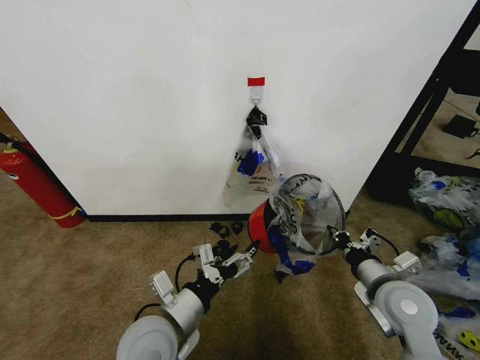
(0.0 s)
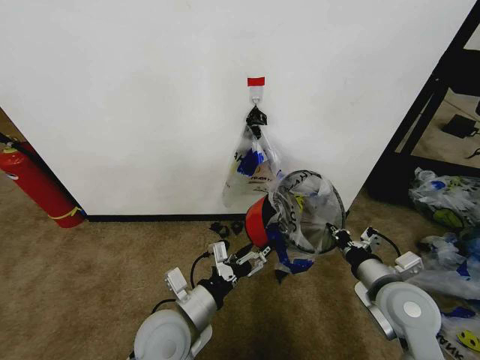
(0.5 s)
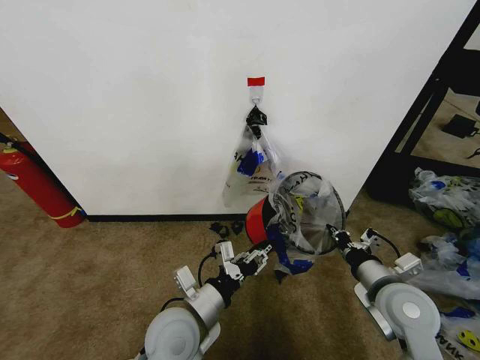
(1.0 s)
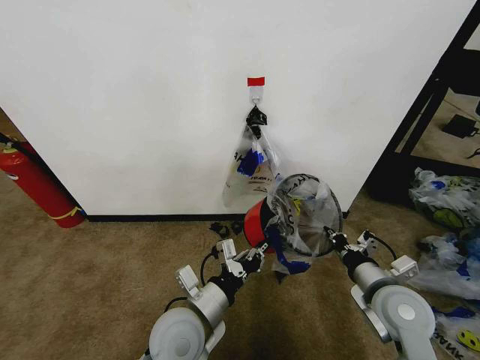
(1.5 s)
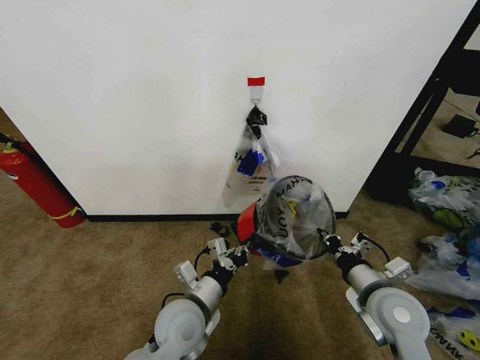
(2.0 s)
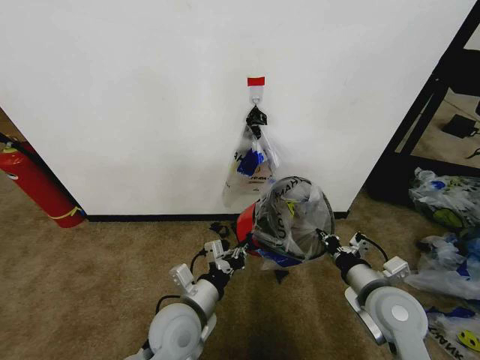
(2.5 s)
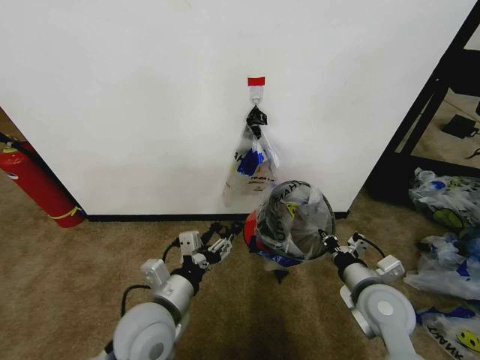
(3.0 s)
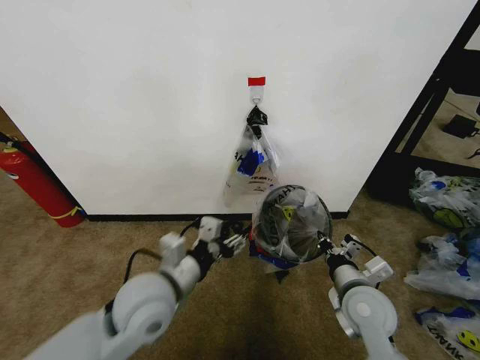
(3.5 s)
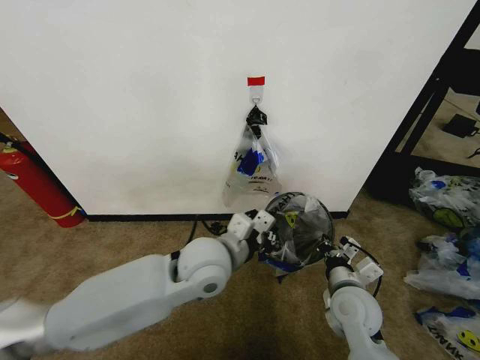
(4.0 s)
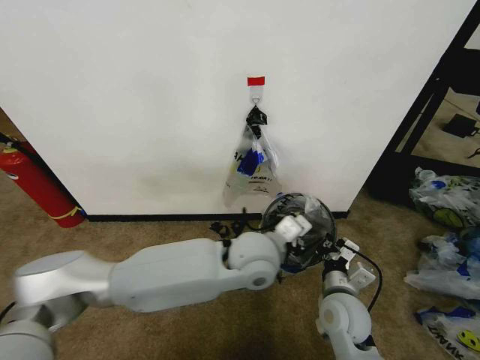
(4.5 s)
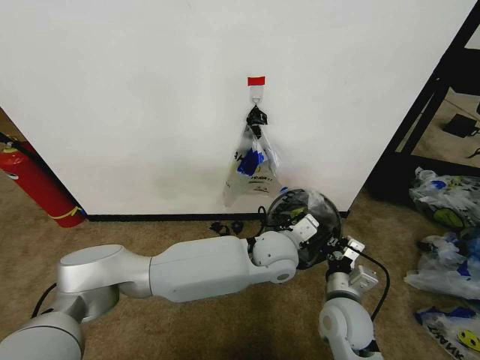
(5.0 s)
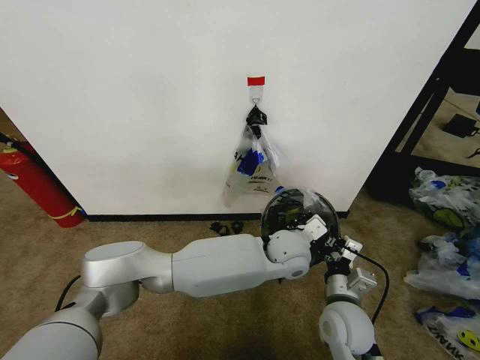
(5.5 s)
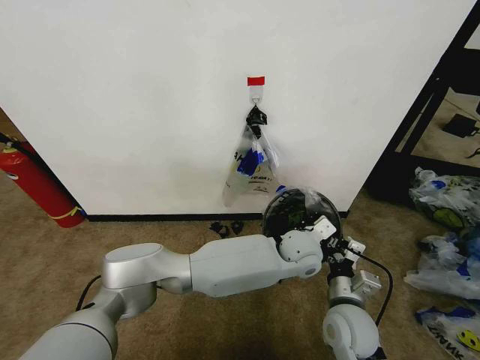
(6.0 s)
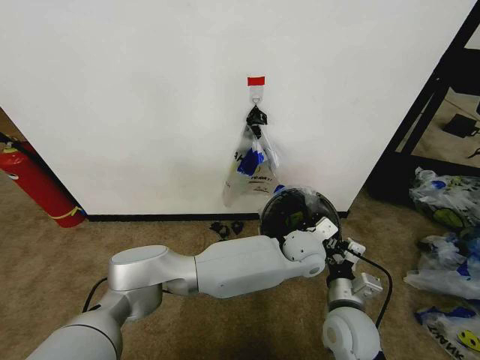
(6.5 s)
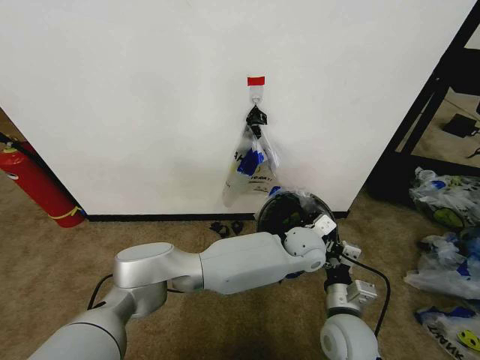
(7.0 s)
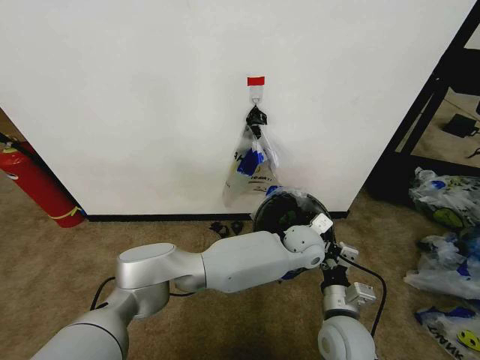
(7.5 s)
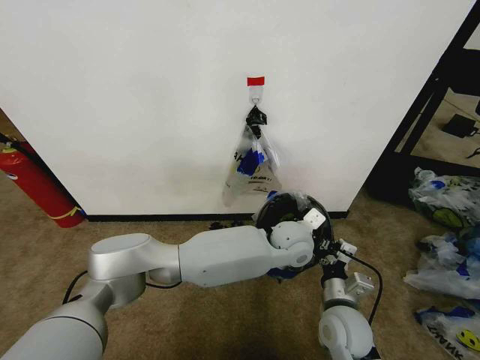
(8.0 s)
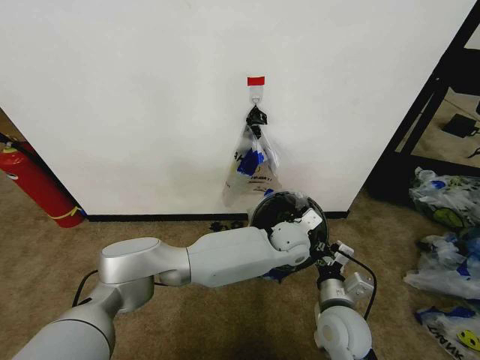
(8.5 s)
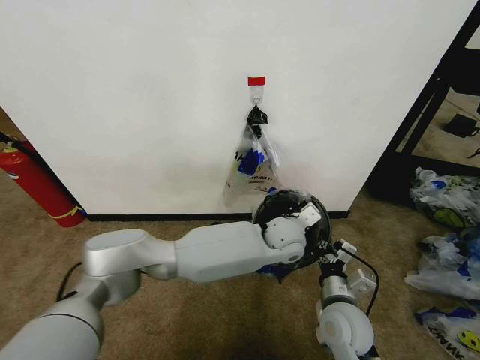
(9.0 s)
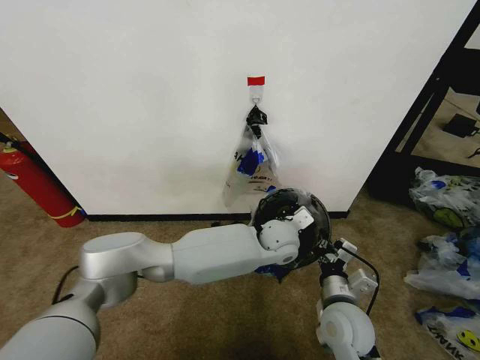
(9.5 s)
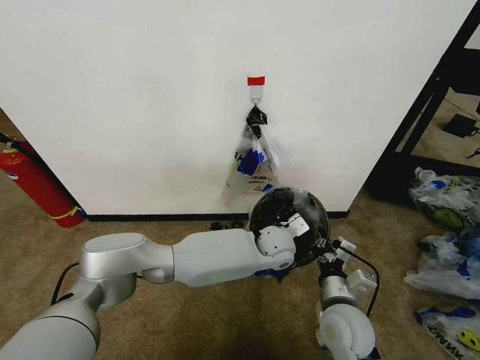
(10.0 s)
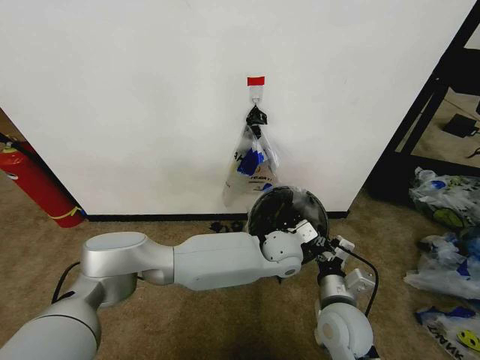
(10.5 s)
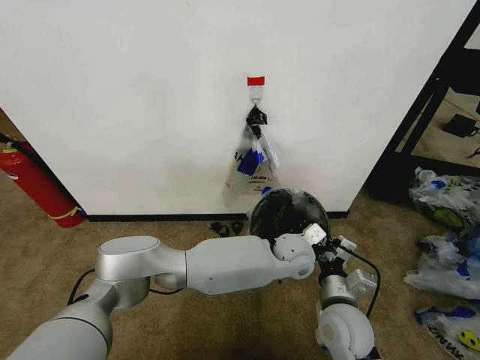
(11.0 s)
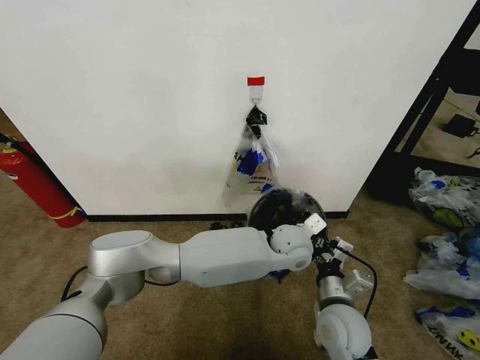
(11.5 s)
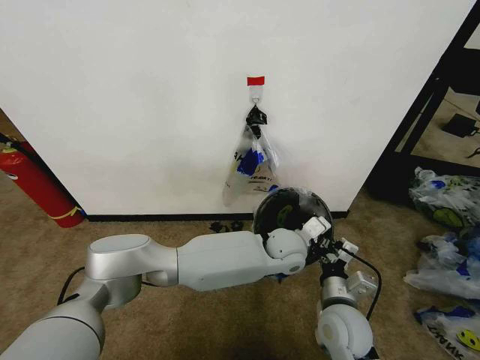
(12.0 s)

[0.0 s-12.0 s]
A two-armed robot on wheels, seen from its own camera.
Task of the whole recording: Pick up the garbage bag from the wall and place it over the trash bin.
0.0 to 2.0 s: The left gripper ends up about 5 cm from where it was, and closes.
2.0 to 4.0 s: The right gripper goes about 5 cm downward. Meanwhile the left gripper heads upward and forward, covering approximately 15 cm, and opens, then closes once more.
4.0 to 6.0 s: The left gripper is displaced to the right by approximately 20 cm.
6.0 to 8.0 s: The grippers make only small movements.
8.0 to 10.0 s: The left gripper changes place by roughly 5 cm.

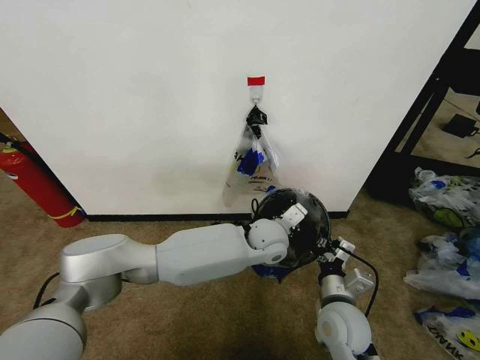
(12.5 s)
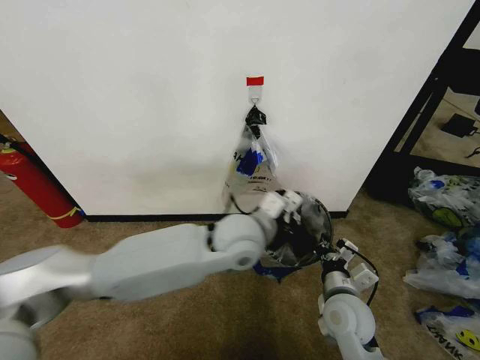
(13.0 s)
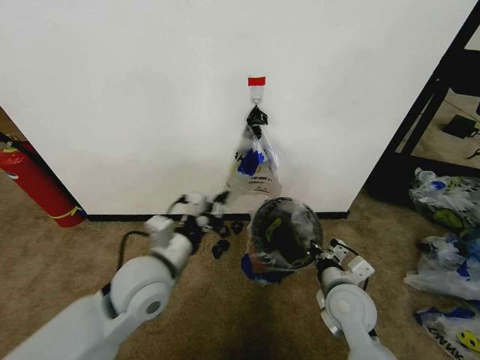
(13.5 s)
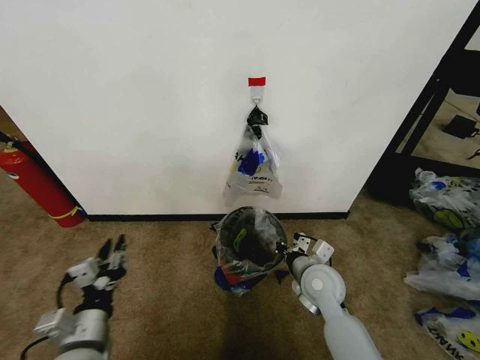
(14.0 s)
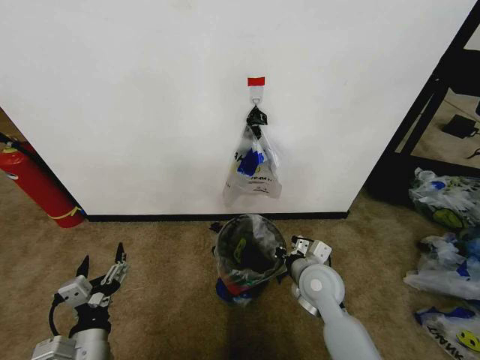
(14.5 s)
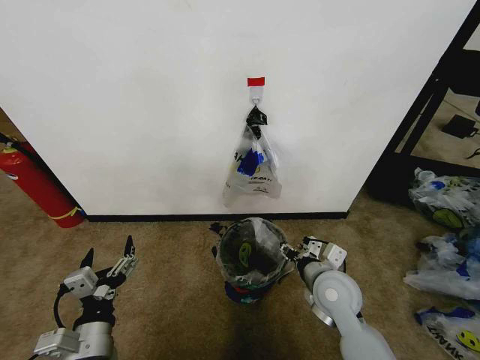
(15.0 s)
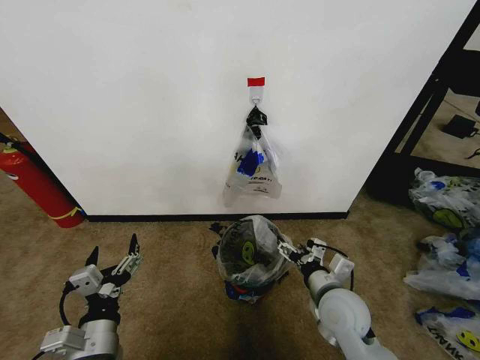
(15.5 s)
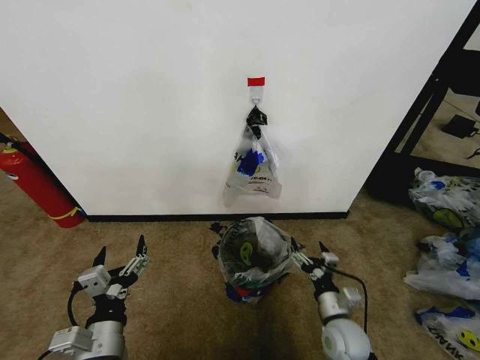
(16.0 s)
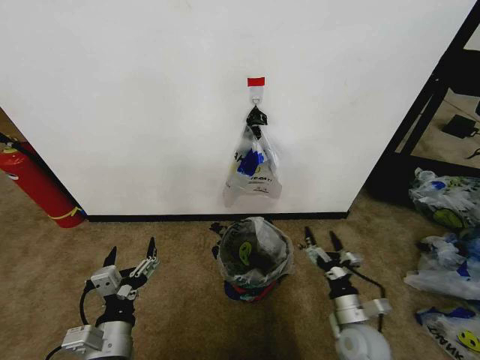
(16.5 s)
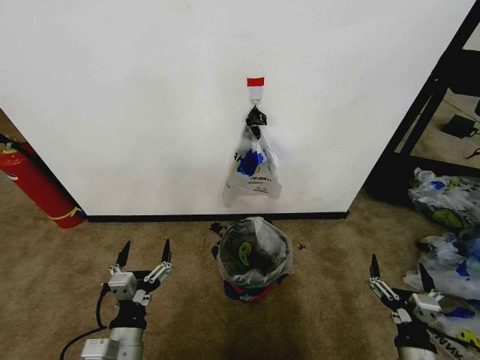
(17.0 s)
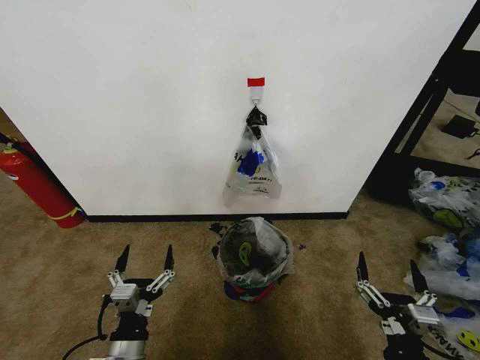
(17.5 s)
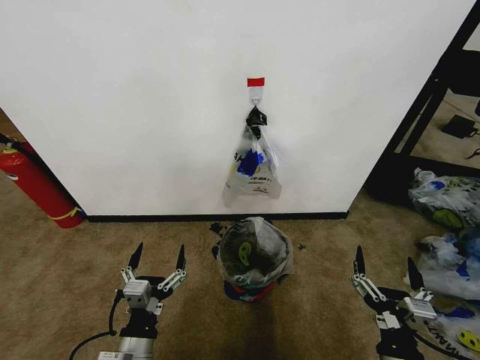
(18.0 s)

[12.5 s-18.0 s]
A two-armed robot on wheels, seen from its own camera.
Task of the whole recording: Pick up the garbage bag from the wall and place it over the trash bin.
12.5 to 14.5 s: The left gripper travels to the left and backward by roughly 40 cm, and opens its fingers. The right gripper heads forward, covering approximately 10 cm.
14.5 to 16.0 s: The right gripper heads downward, backward and to the right, covering approximately 15 cm, and opens its fingers.
16.0 to 18.0 s: The left gripper moves some 5 cm; the right gripper goes roughly 20 cm backward and upward.

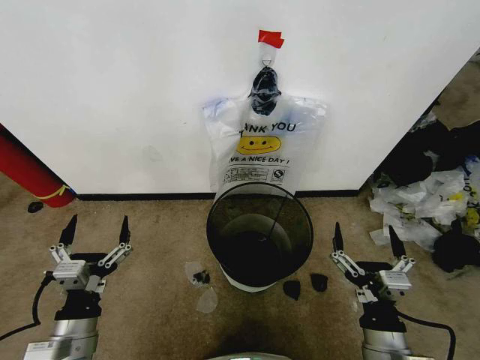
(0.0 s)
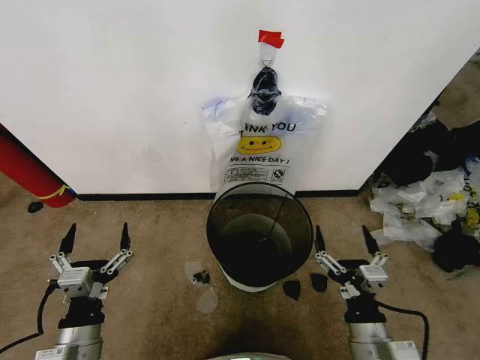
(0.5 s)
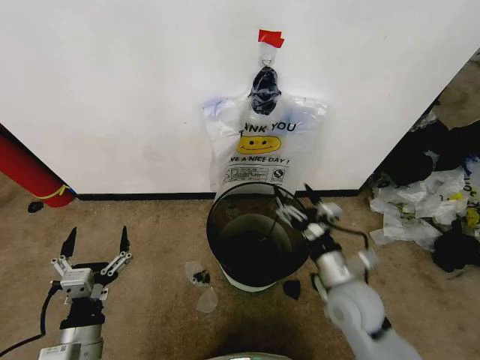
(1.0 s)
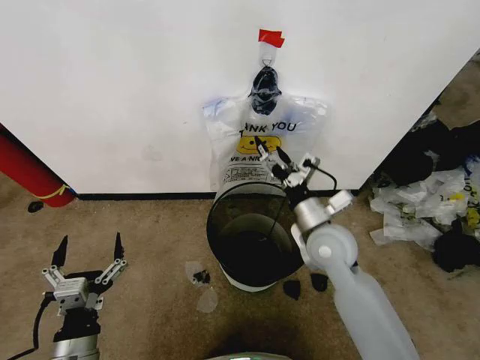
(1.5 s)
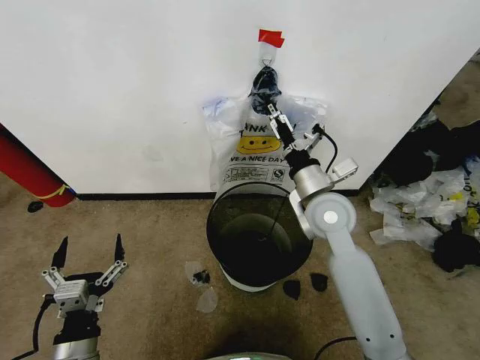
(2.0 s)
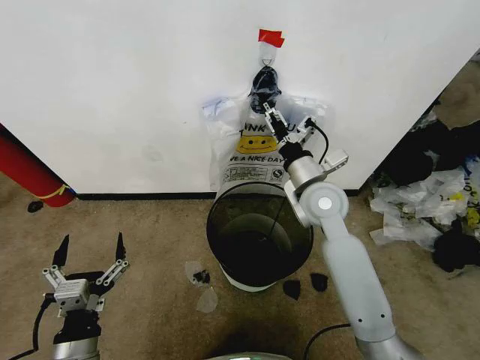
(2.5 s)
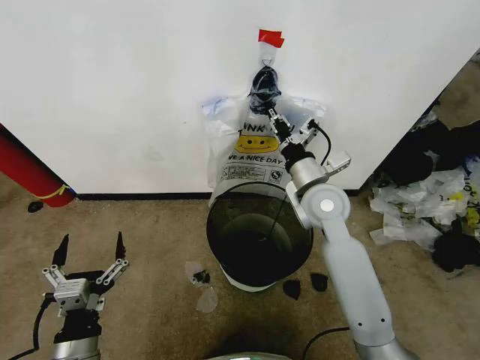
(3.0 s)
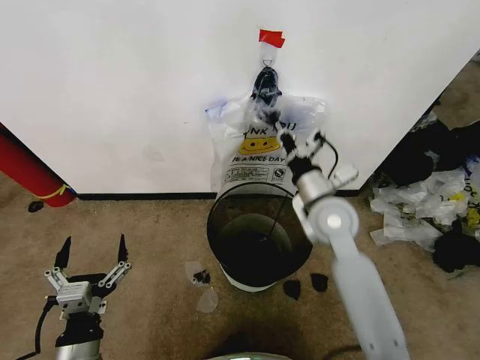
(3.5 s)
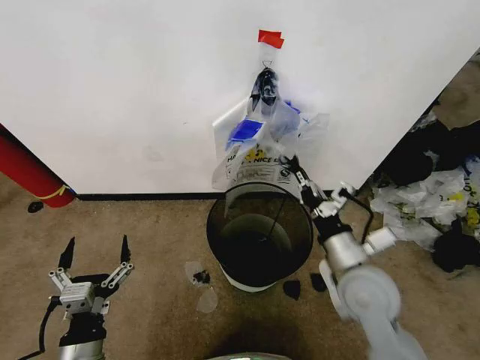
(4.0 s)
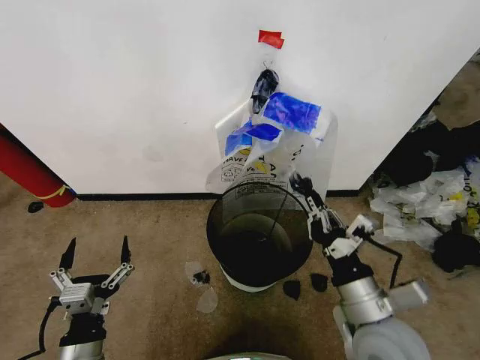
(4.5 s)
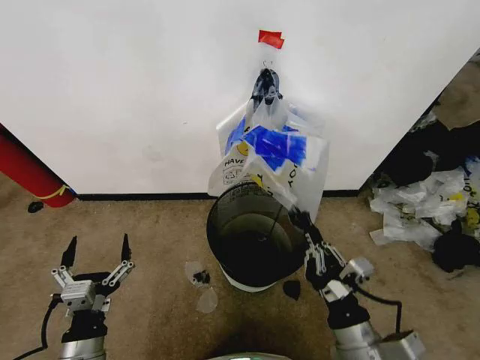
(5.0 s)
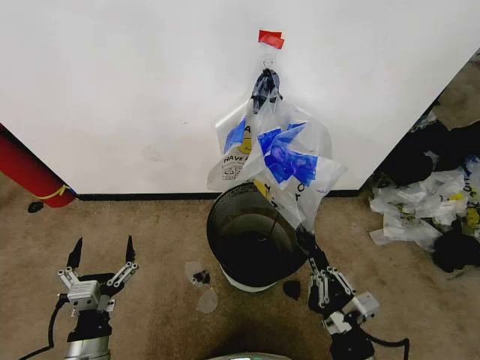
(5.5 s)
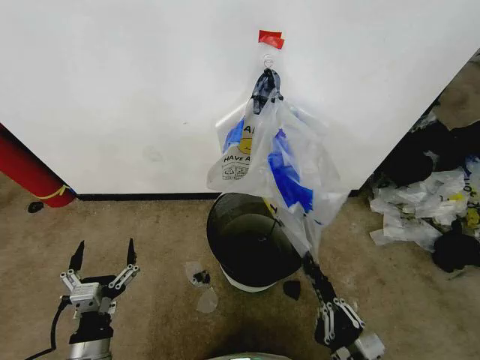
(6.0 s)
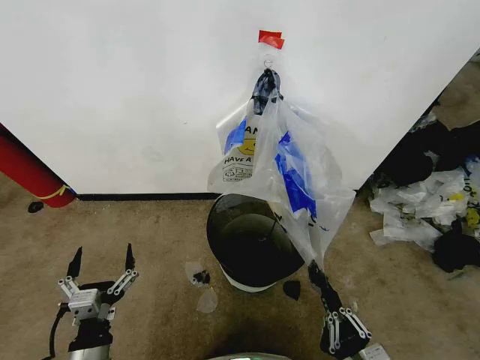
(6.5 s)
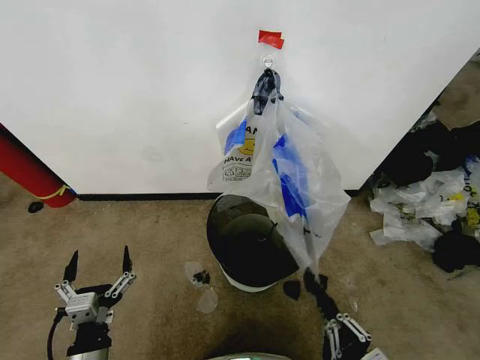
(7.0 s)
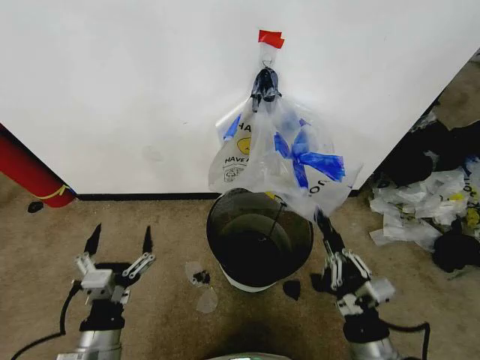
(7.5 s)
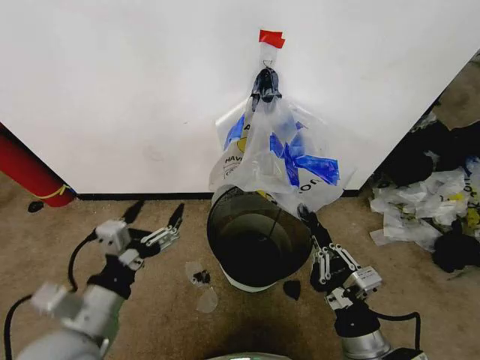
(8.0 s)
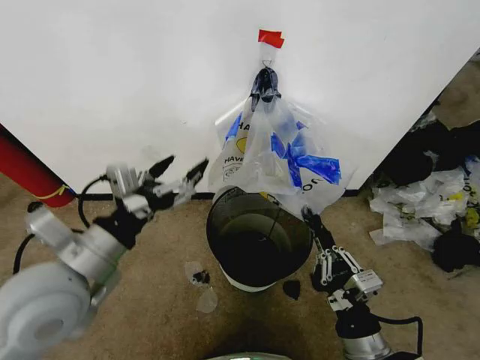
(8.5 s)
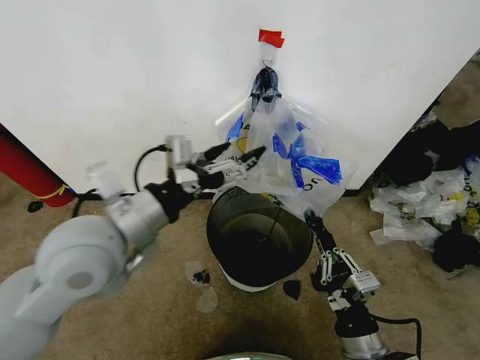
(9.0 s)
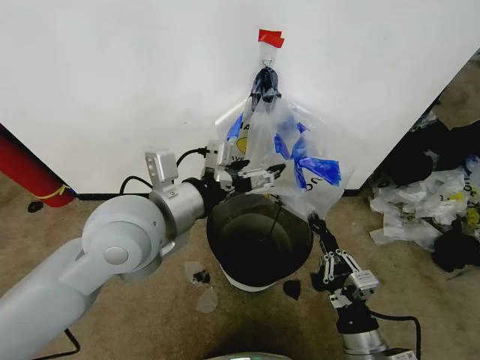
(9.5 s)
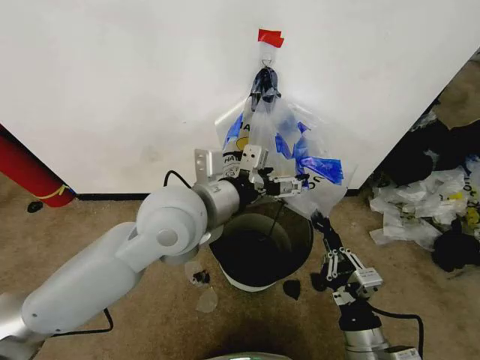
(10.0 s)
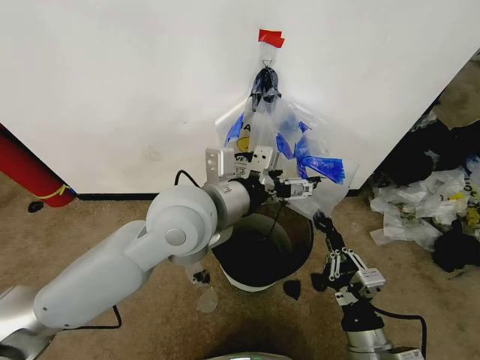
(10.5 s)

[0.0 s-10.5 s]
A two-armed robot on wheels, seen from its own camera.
Task of the whole recording: Pick up the garbage bag from the wall and place it over the trash bin.
2.0 to 4.0 s: The right gripper moves backward and downward, approximately 15 cm, and closes up.
4.0 to 6.5 s: The right gripper goes some 25 cm backward and downward.
6.5 to 8.5 s: The left gripper goes roughly 25 cm upward and forward. The right gripper goes about 10 cm upward and forward.
8.5 to 10.5 s: The left gripper shifts roughly 20 cm to the right and forward.
